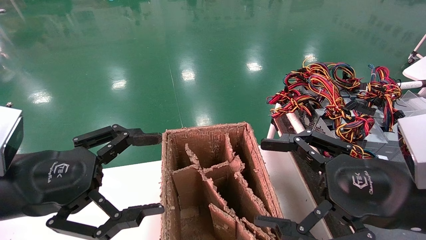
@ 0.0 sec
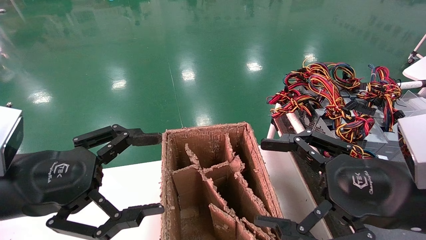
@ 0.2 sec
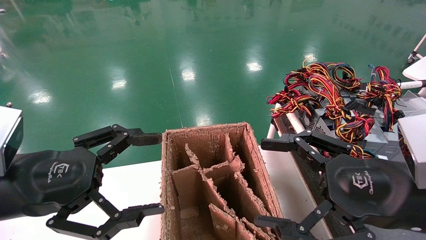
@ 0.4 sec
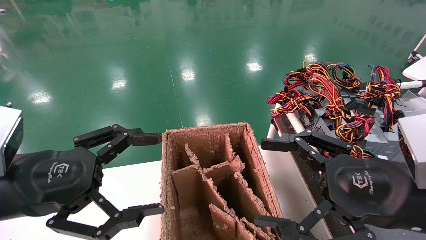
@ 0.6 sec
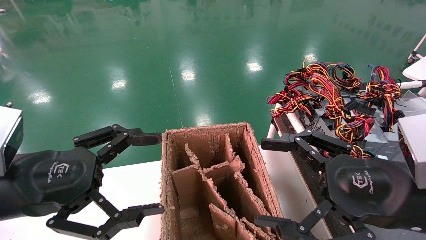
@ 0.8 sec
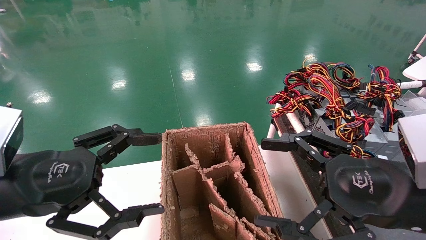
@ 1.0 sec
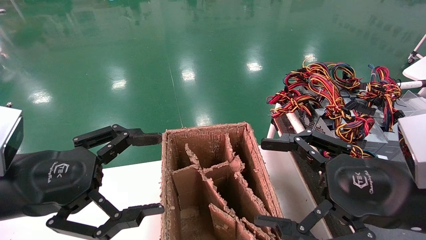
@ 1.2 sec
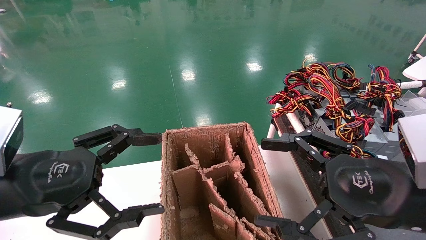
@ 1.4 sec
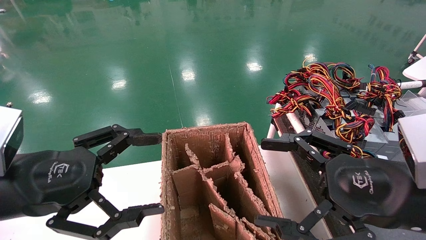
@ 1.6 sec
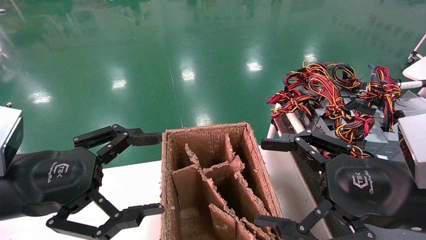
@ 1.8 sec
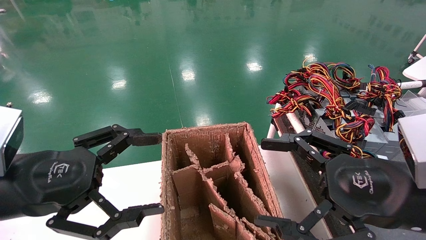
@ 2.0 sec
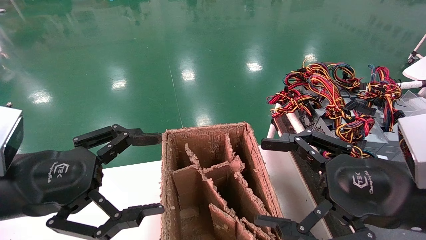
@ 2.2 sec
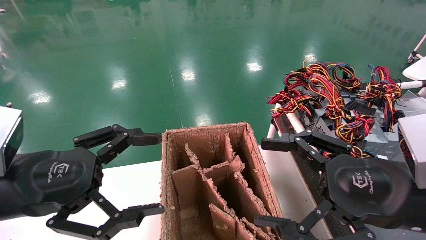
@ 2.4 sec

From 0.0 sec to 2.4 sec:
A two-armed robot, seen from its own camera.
From 0.0 sec to 2.4 sec: Neither gripper changes place.

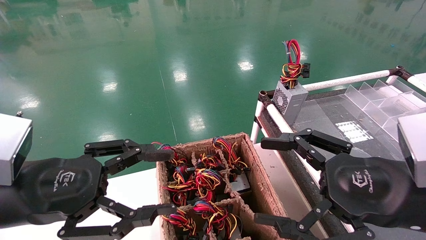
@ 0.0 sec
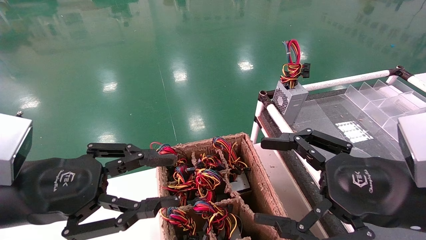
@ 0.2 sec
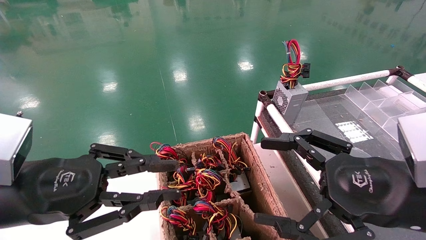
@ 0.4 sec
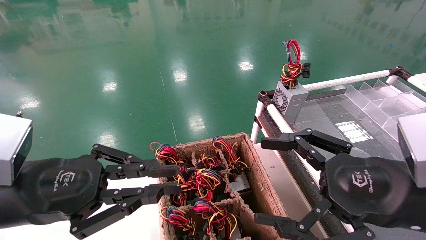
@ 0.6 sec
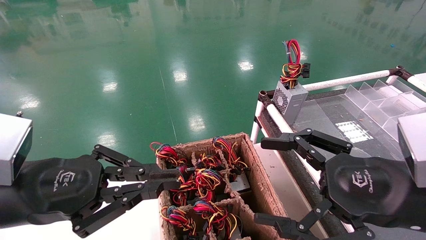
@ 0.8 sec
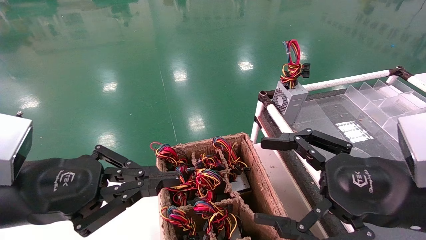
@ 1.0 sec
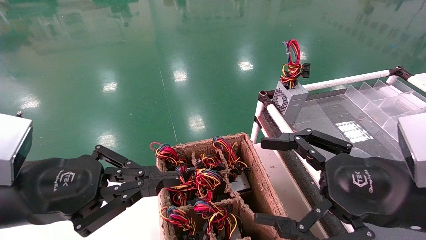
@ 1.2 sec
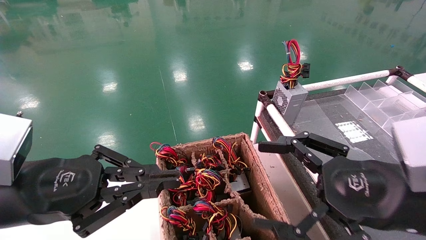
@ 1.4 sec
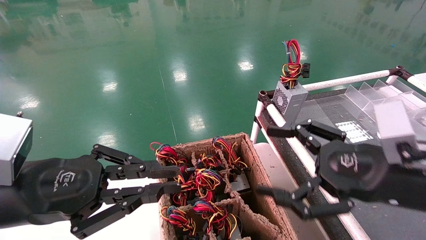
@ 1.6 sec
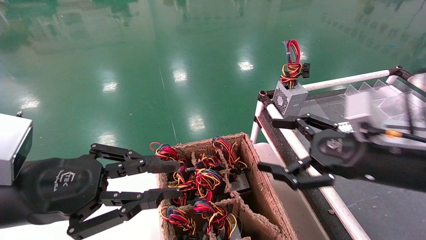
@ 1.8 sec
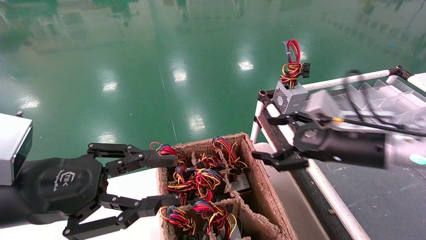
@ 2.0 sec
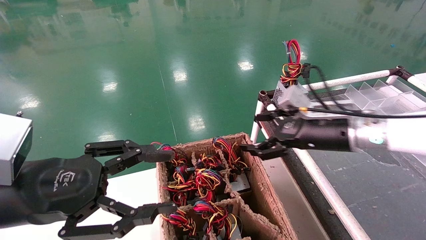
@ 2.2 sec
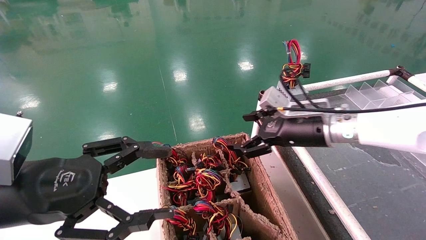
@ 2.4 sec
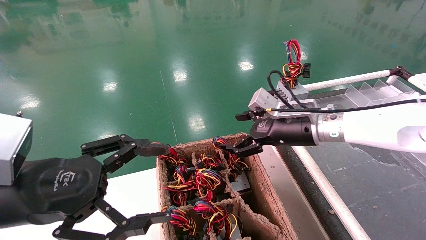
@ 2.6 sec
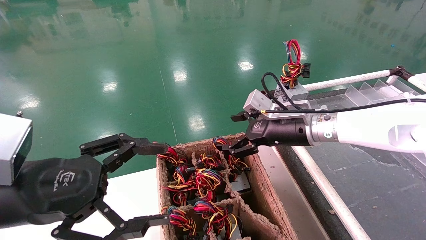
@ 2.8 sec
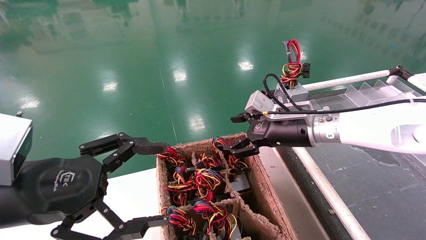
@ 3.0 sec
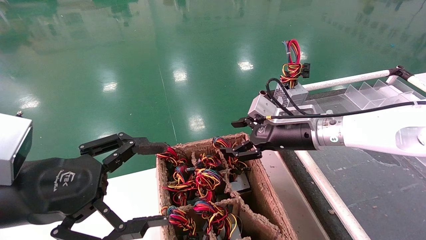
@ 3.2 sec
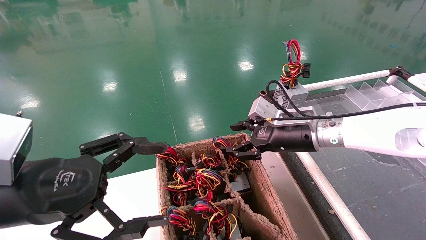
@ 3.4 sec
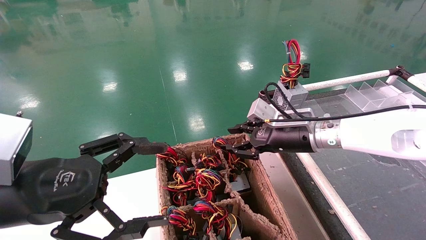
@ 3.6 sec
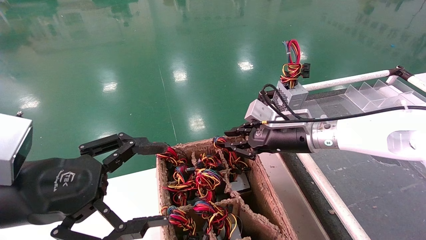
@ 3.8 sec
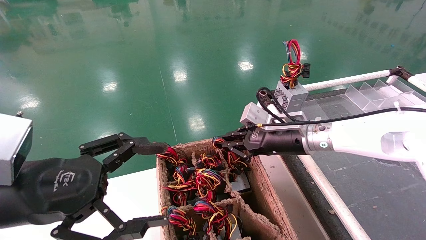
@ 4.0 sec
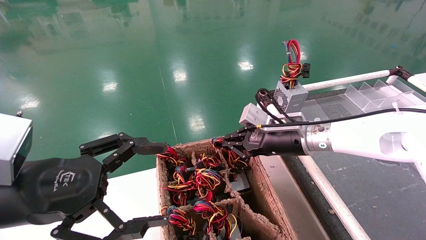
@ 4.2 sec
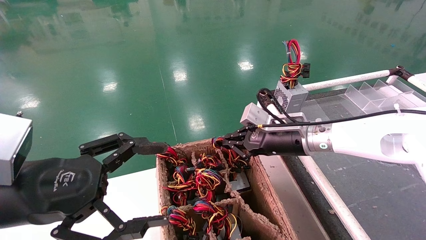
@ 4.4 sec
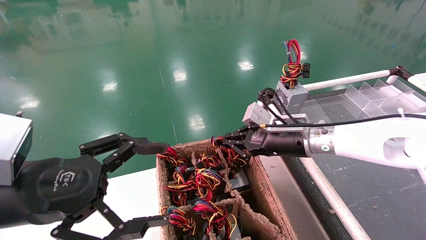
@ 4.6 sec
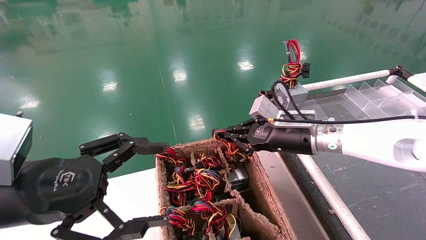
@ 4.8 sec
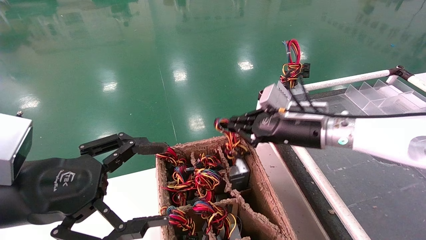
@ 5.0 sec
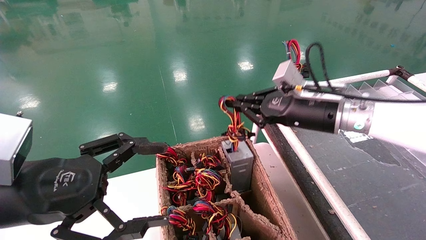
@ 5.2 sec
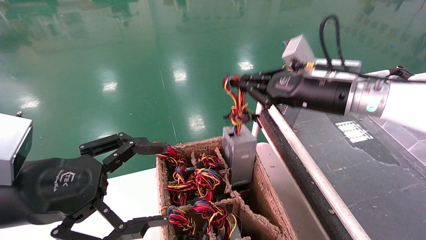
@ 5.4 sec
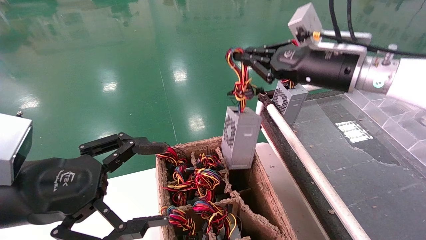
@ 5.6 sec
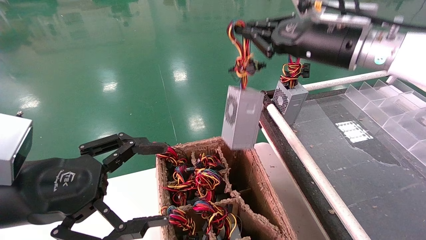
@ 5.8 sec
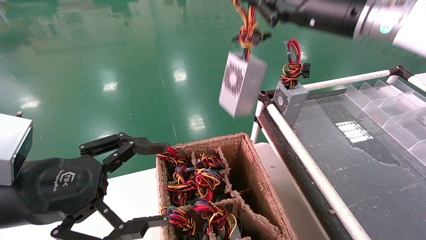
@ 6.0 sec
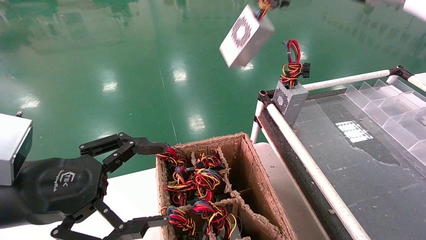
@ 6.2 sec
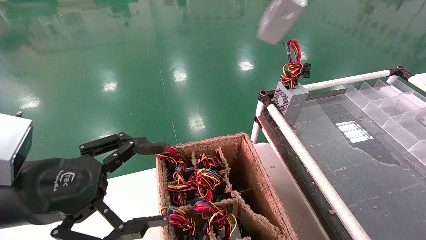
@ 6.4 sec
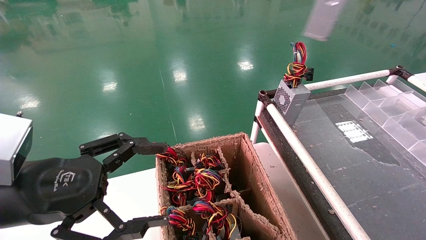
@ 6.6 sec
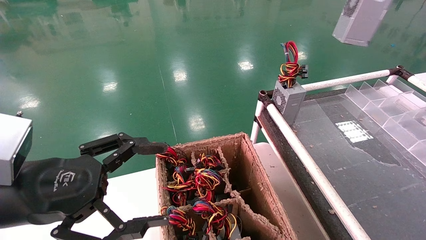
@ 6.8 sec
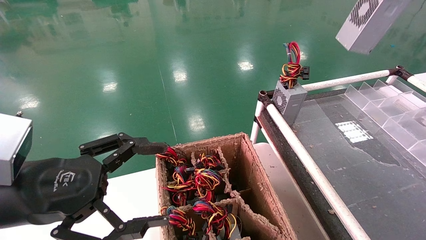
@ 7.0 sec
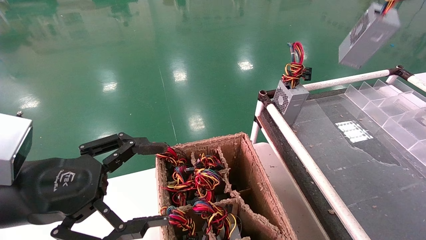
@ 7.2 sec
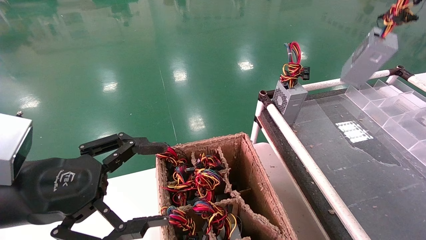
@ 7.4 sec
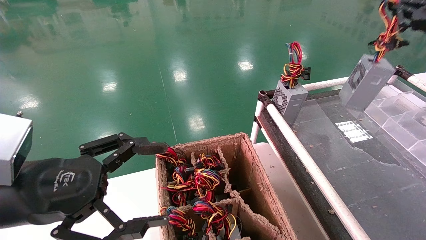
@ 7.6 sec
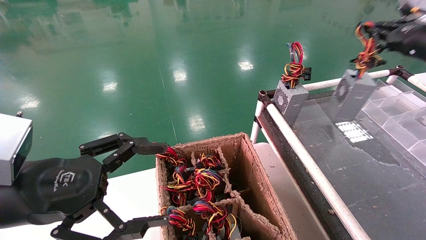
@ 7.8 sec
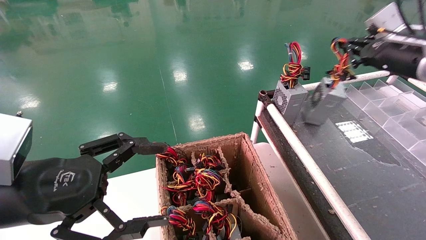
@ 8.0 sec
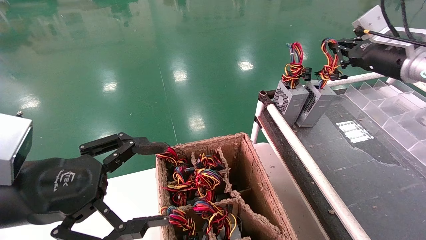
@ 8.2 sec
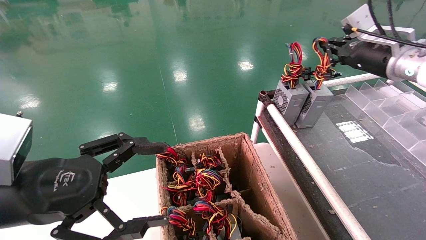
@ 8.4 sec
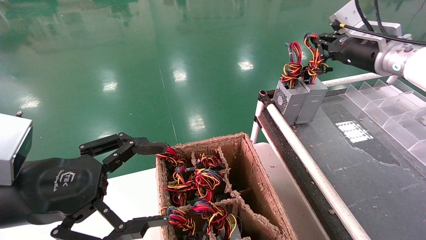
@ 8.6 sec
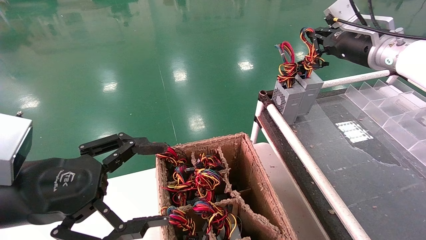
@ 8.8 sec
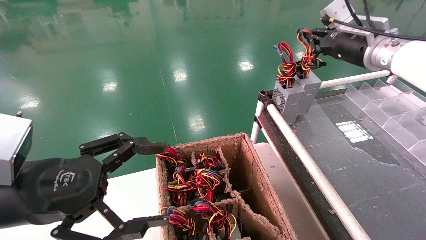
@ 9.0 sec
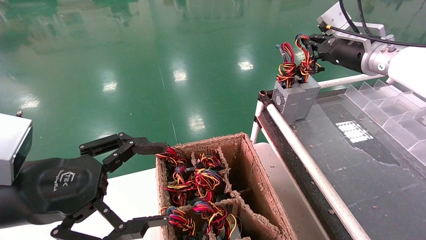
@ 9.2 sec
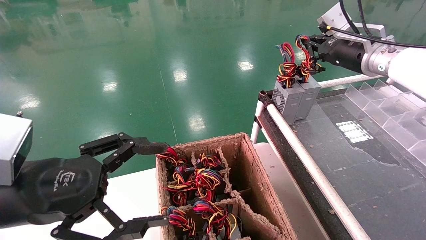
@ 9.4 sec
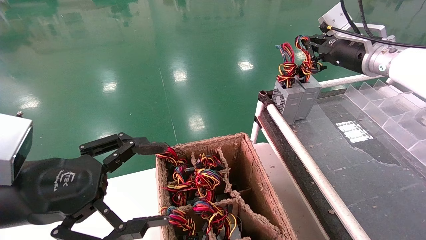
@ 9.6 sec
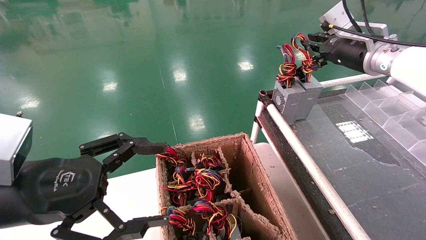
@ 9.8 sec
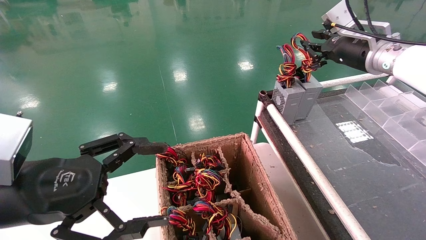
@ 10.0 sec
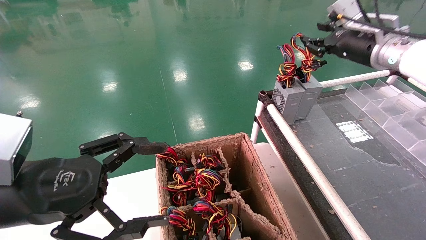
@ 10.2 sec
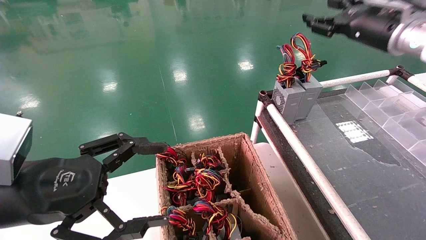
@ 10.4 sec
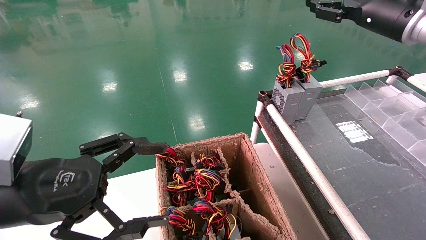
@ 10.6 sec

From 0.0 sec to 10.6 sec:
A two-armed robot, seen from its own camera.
Step, from 1.0 sec to 4.2 sec: Grab and lift the power supply from the large box.
Step, from 4.4 sec to 9.4 sec: Place the power supply on the operating table.
From 0.0 sec to 1.6 sec: The left gripper closes.
From 1.6 sec to 3.0 sec: The right gripper travels forward and to the left by approximately 20 cm. The left gripper opens.
From 3.0 sec to 4.6 sec: The right gripper closes its fingers.
From 4.6 sec to 6.0 sec: The right gripper heads upward, covering about 25 cm.
From 6.0 sec to 7.6 sec: The right gripper shifts about 20 cm to the right.
From 7.6 sec to 9.0 sec: The right gripper shifts approximately 15 cm to the left and forward.
From 9.0 sec to 10.6 sec: The right gripper ends up some 5 cm from where it was, and opens.

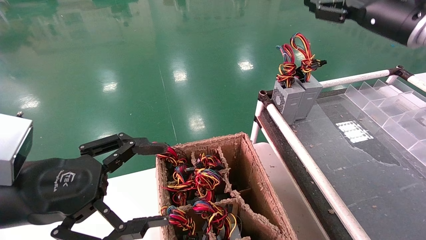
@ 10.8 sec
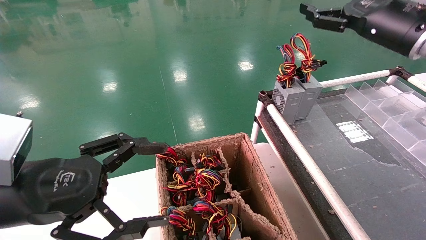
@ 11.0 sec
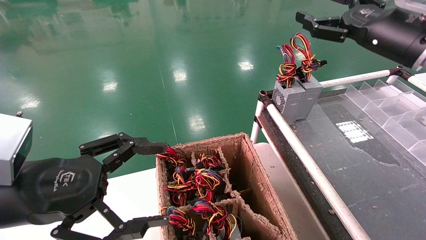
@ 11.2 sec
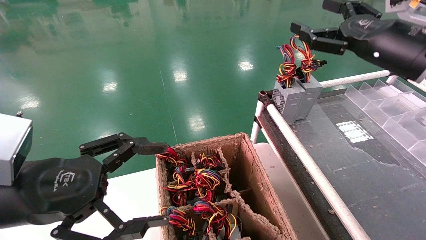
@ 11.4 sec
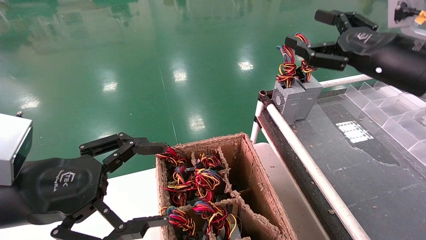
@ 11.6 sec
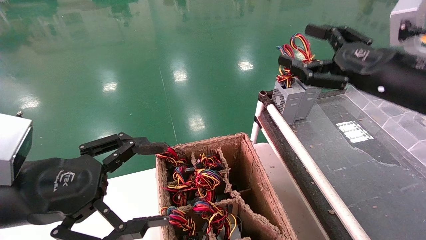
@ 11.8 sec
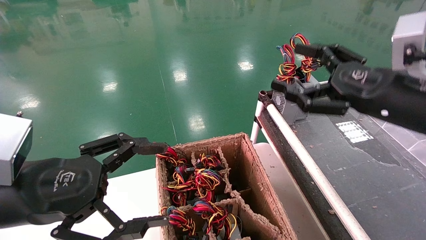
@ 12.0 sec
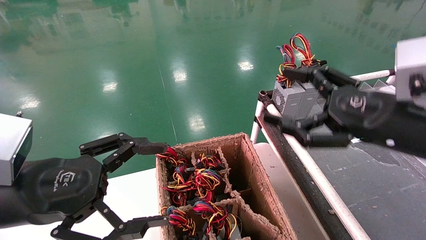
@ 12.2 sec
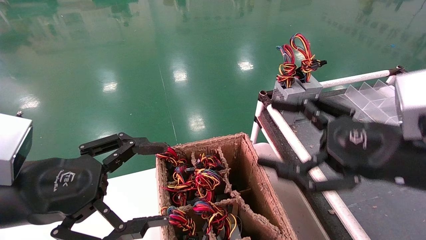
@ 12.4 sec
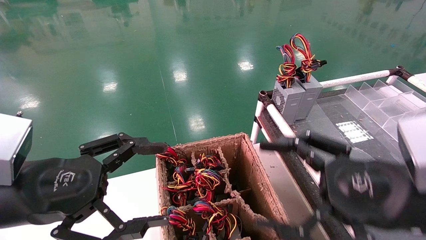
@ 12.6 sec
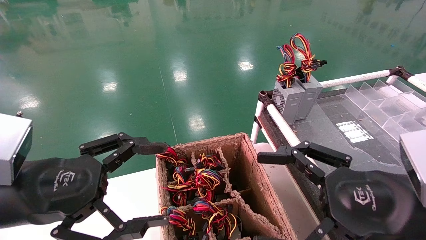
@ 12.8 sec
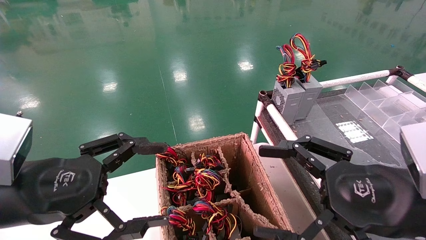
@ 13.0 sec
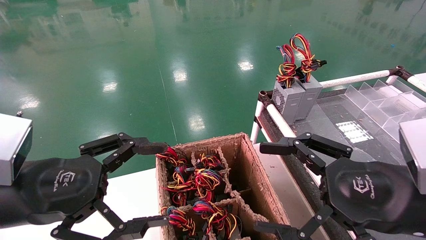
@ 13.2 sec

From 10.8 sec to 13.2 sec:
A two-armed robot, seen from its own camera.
From 10.8 sec to 12.0 sec: The right gripper moves backward and downward, approximately 15 cm.
From 12.0 sec to 13.2 sec: The right gripper goes about 10 cm backward and downward.
